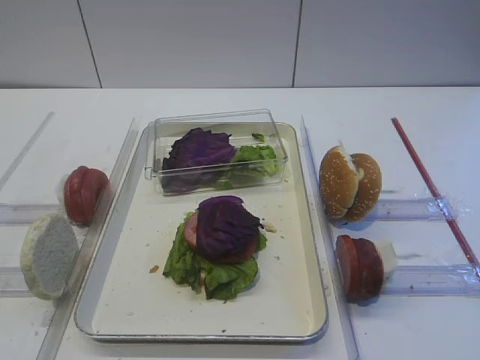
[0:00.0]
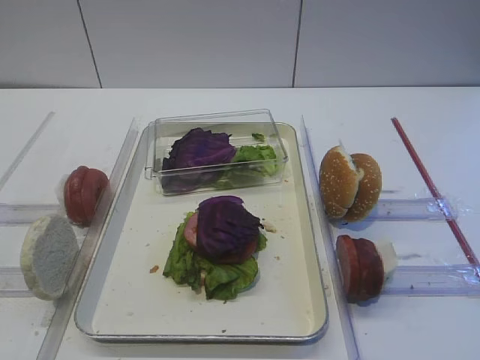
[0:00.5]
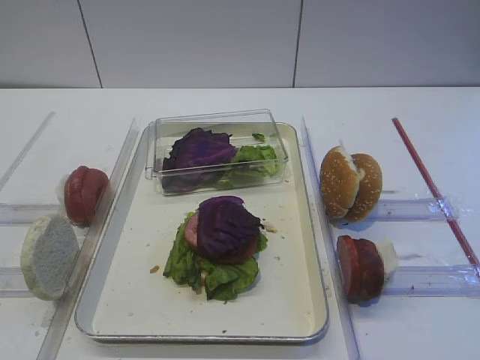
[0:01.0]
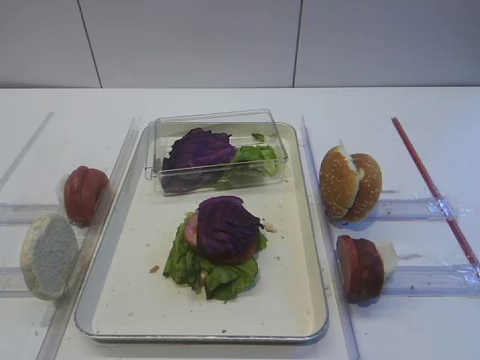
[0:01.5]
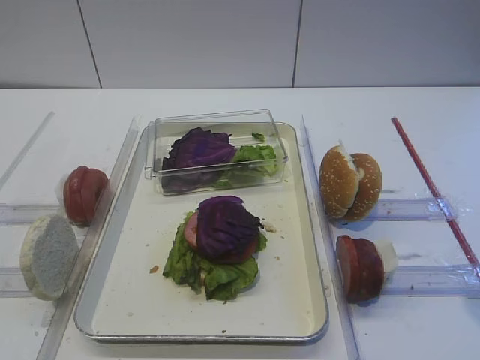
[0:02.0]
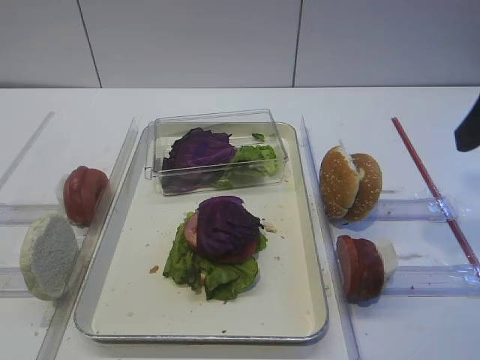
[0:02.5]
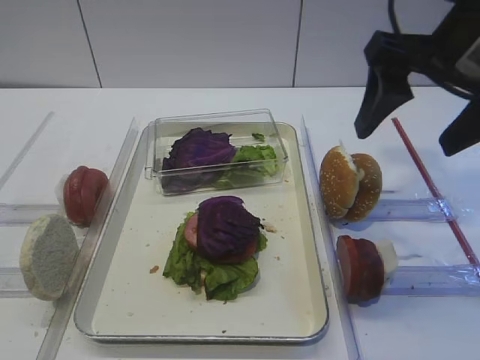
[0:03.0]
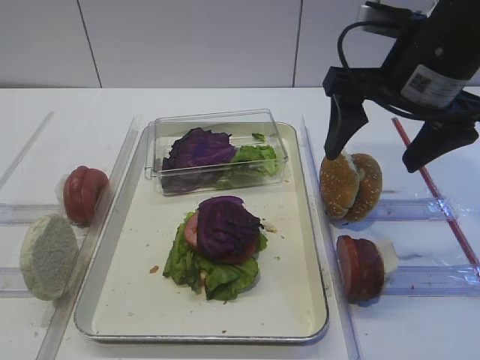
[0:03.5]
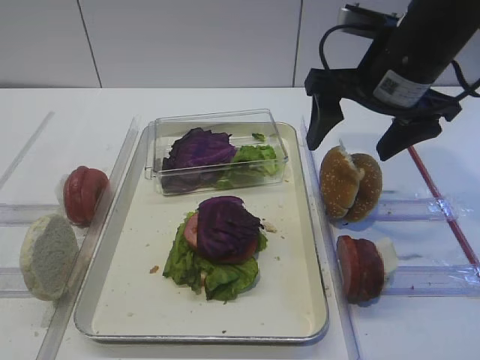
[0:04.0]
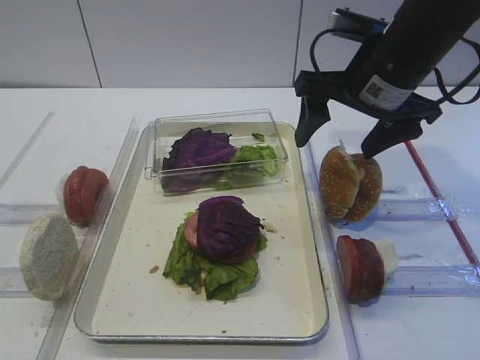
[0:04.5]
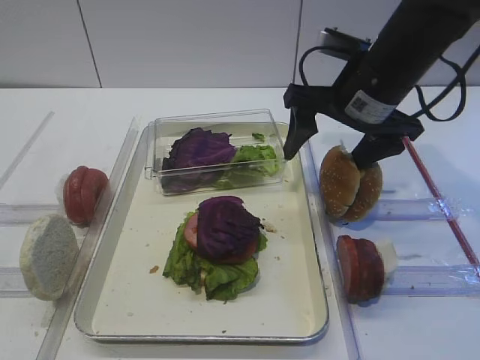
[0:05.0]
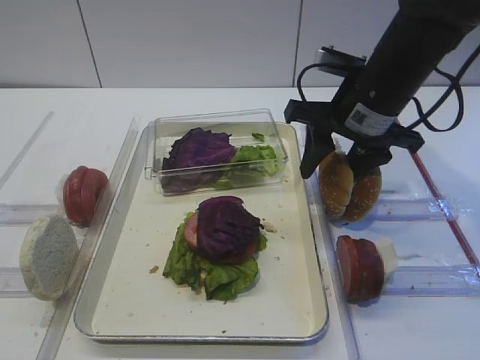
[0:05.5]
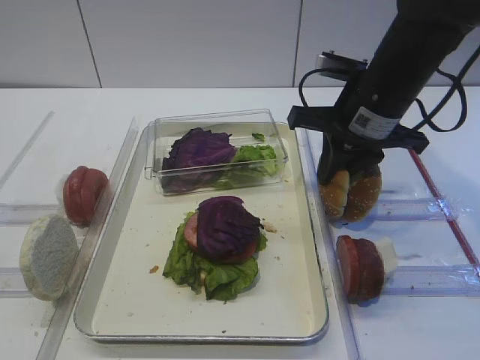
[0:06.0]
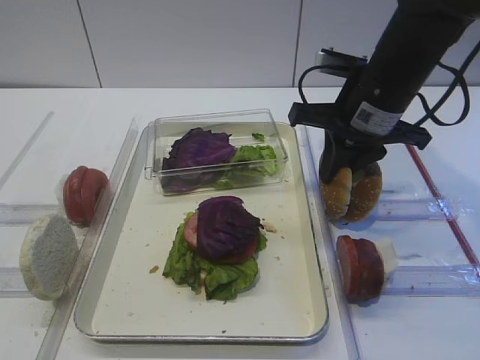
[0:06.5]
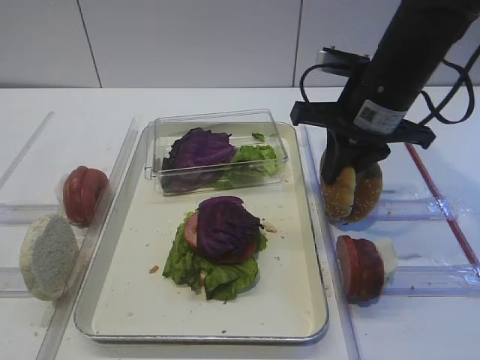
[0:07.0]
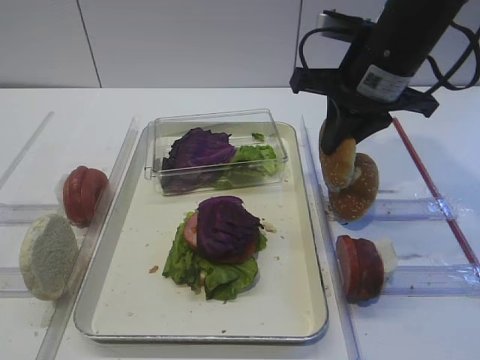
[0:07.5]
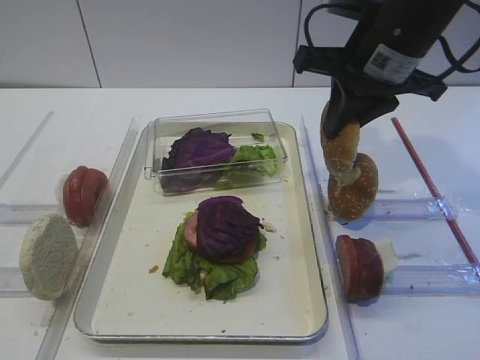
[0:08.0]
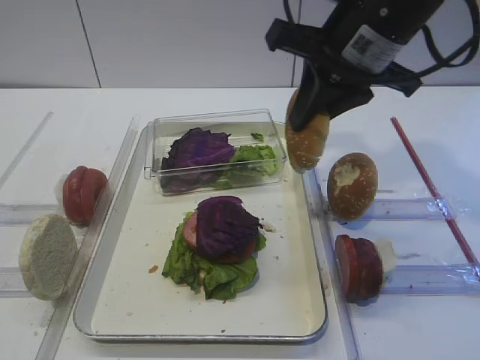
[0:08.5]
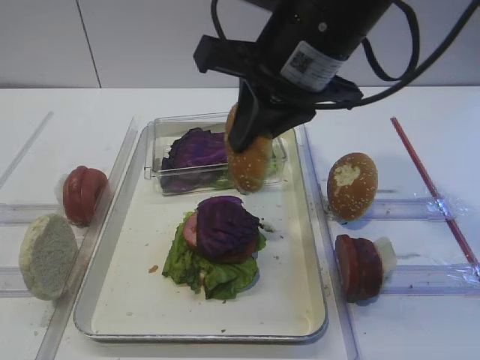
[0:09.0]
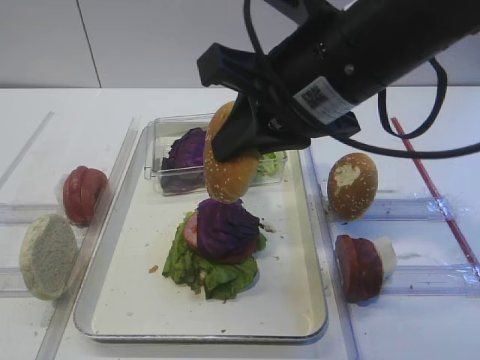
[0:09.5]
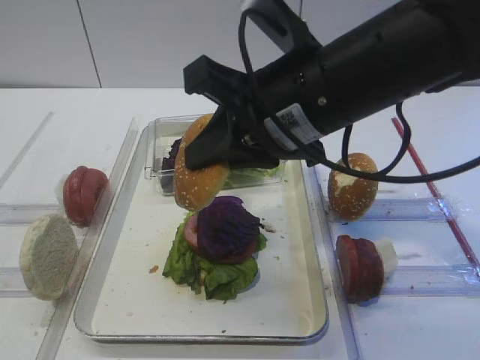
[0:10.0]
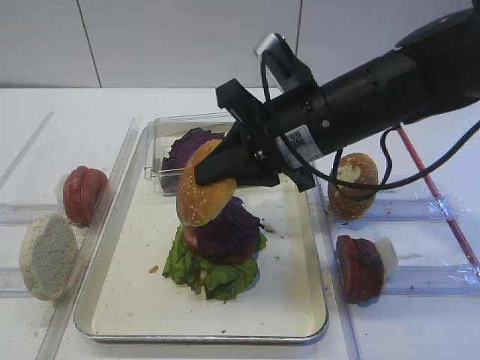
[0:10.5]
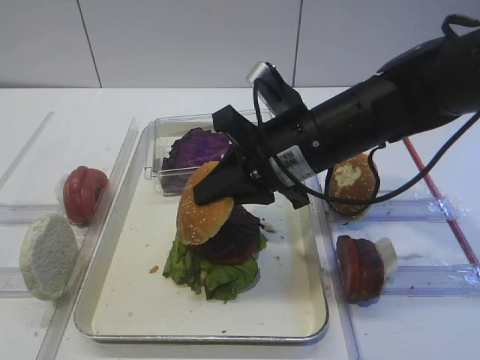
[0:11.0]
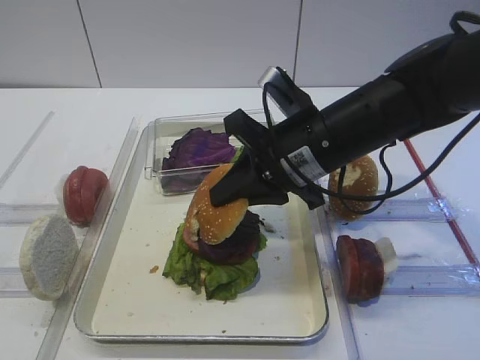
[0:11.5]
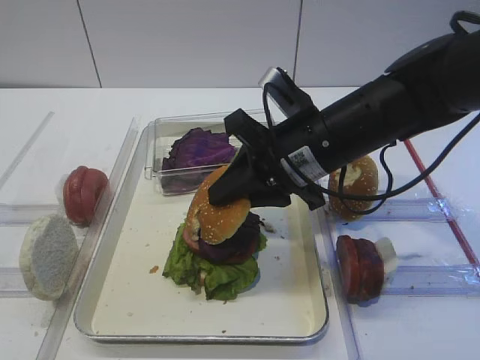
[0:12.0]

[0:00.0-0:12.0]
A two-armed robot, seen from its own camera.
Step, 0:00.0 to 0:07.5: Pick up the hamburger lid with the right gripper.
0:02.0 to 0:04.0: The right gripper travels forward and to the left by about 25 cm.
0:04.0 to 0:06.0: The right gripper ends up about 5 cm from where it was, and closes up.
0:06.0 to 0:08.0: The right gripper heads upward, covering roughly 5 cm.
0:08.0 to 0:10.0: The right gripper heads backward and to the left, covering roughly 10 cm.
0:10.0 to 0:12.0: The right gripper shifts some 10 cm downward and forward.

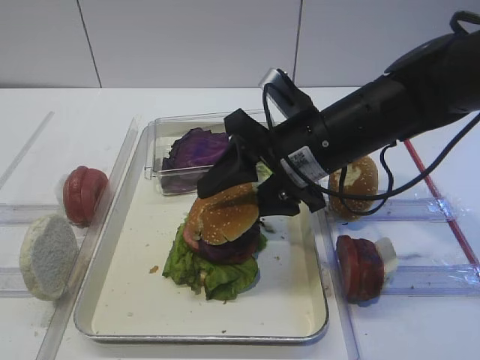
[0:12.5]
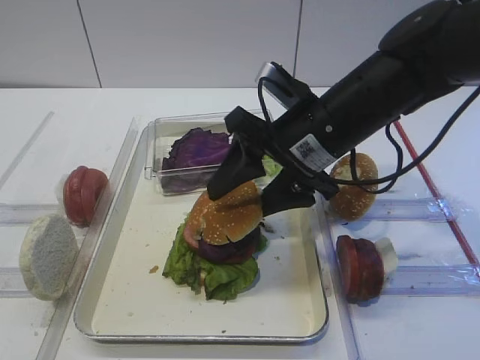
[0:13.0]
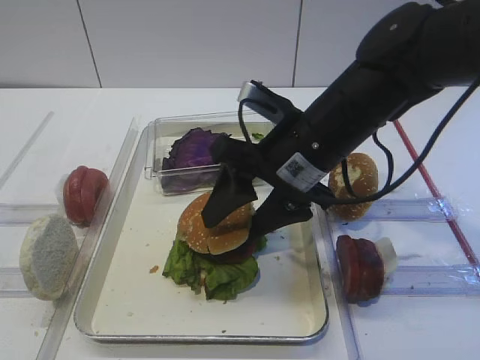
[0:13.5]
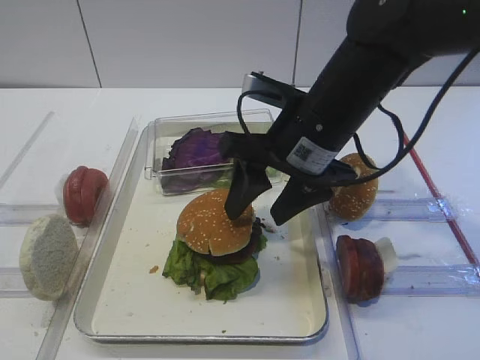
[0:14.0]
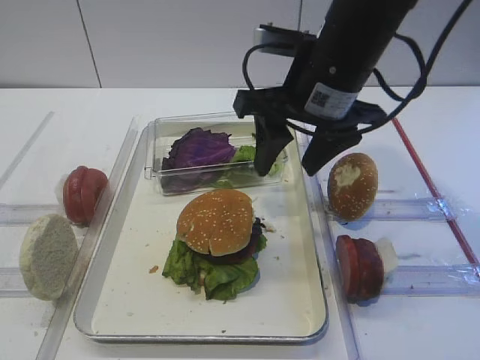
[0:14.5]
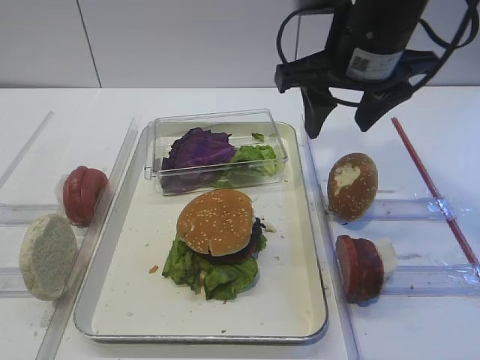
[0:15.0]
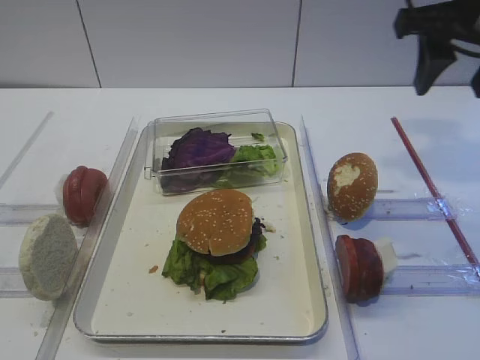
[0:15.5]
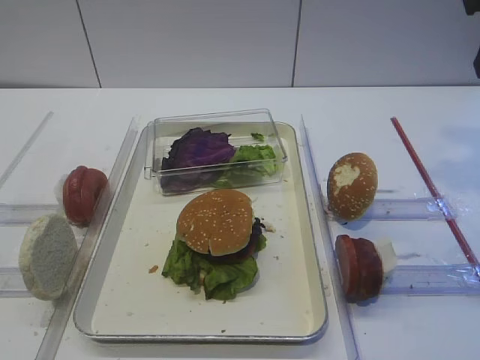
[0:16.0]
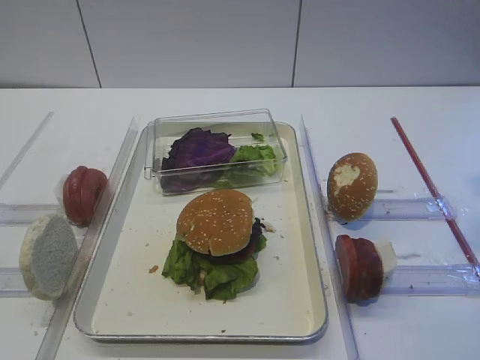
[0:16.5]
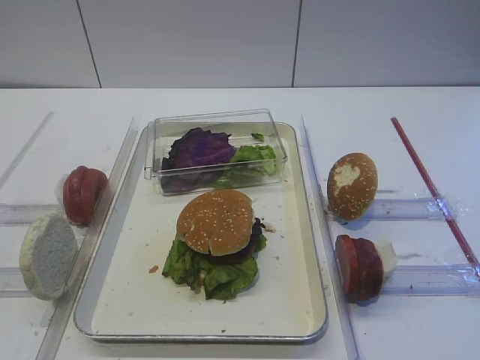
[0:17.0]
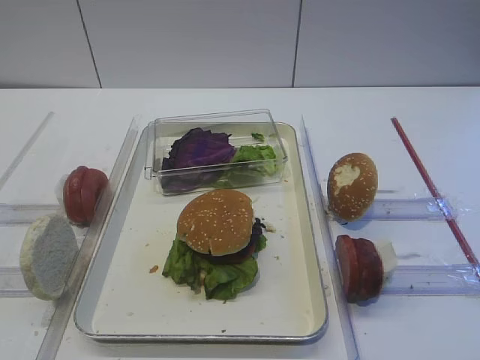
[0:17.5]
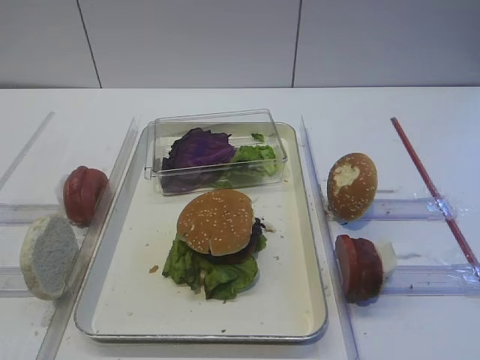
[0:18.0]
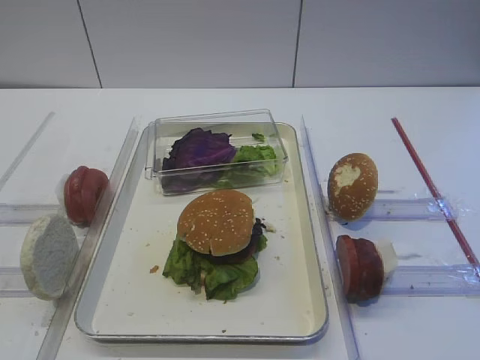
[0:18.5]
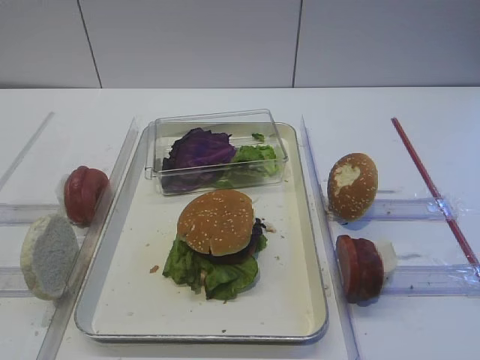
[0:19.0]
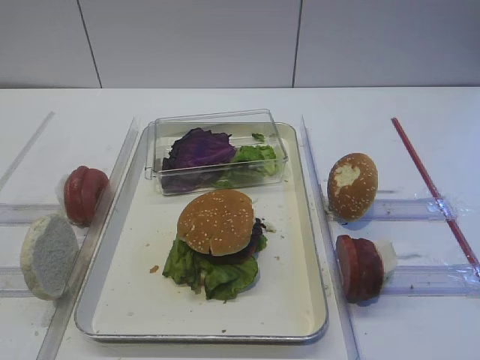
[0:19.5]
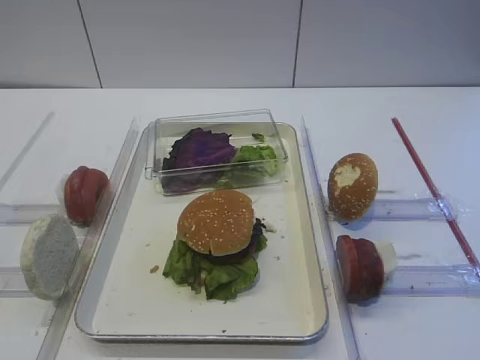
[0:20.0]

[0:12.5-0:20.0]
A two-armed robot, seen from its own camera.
0:12.5 to 0:14.5: The right gripper heads upward, covering about 5 cm.
0:14.5 to 0:16.5: The right gripper shifts about 25 cm to the right, backward and upward.
0:18.0 to 0:20.0: The two grippers keep their place.

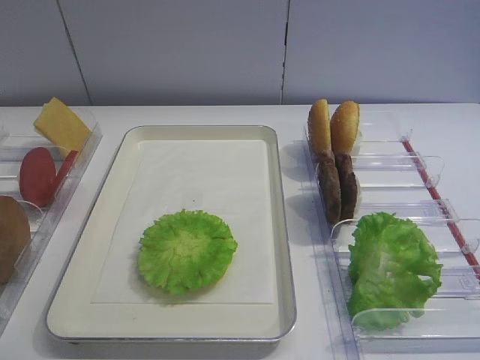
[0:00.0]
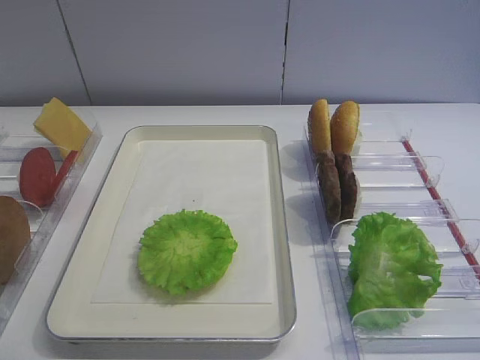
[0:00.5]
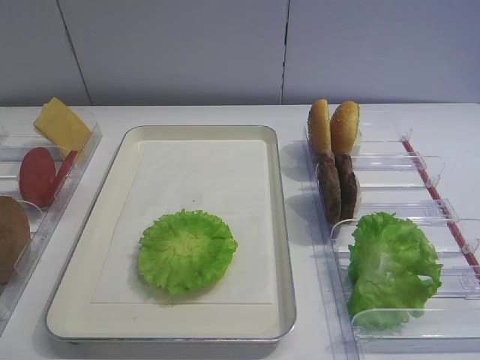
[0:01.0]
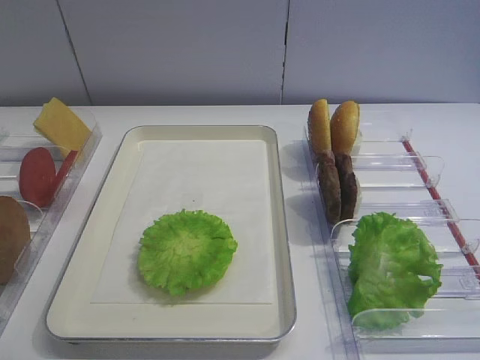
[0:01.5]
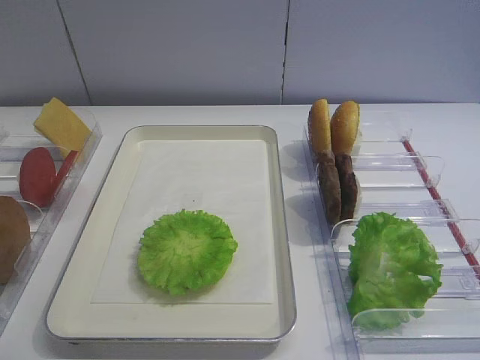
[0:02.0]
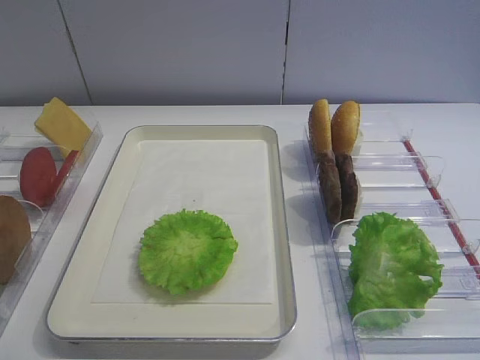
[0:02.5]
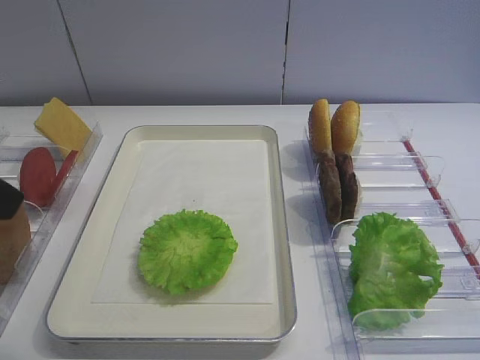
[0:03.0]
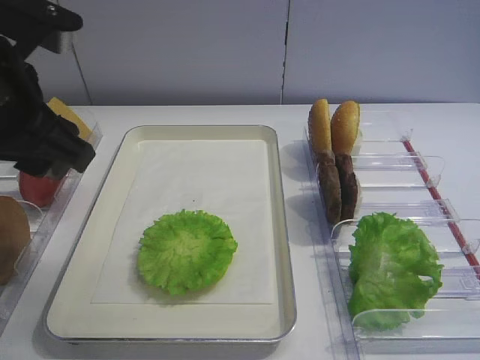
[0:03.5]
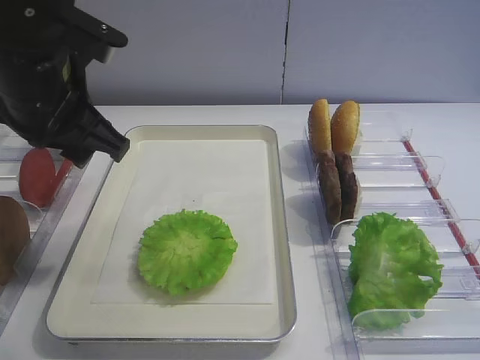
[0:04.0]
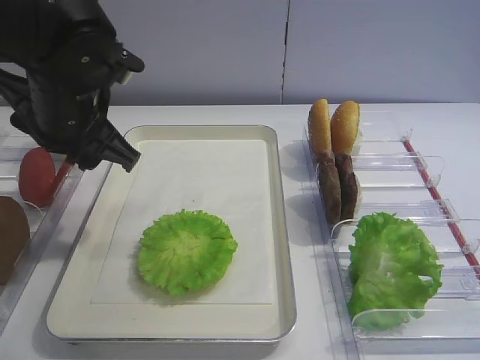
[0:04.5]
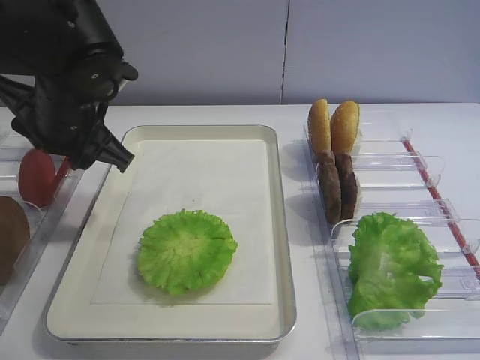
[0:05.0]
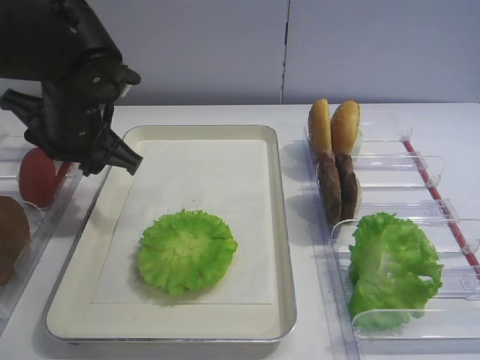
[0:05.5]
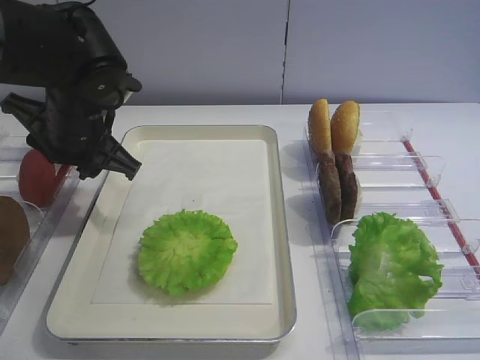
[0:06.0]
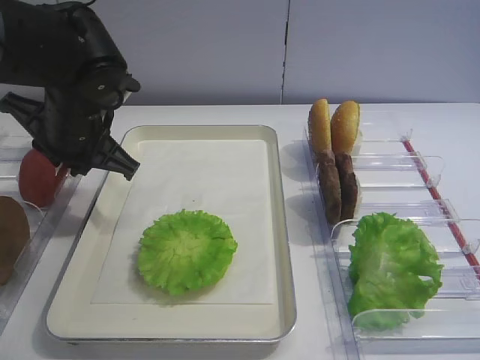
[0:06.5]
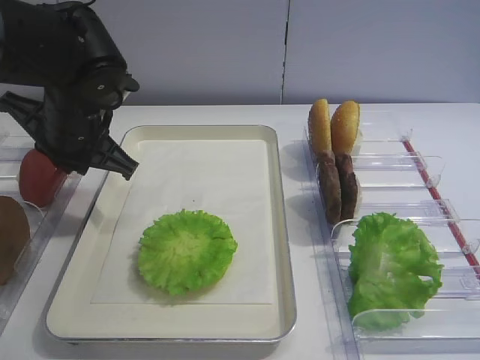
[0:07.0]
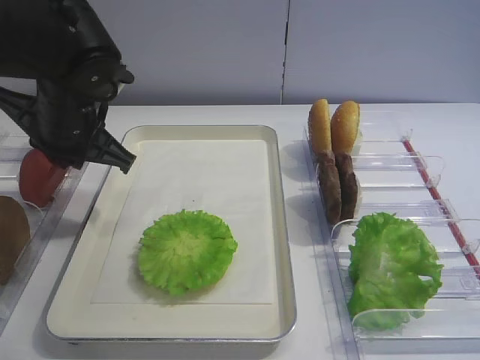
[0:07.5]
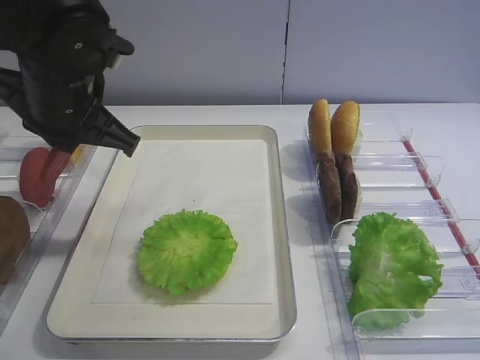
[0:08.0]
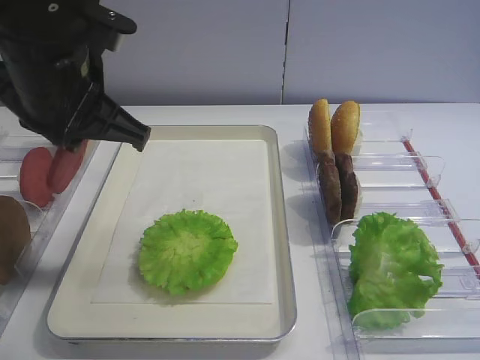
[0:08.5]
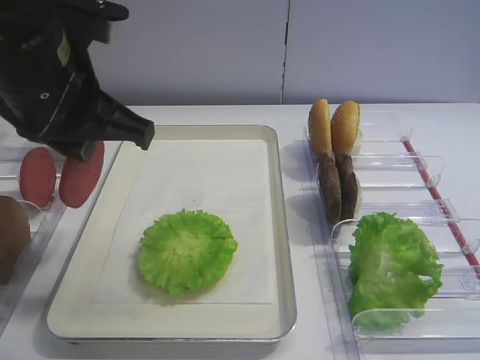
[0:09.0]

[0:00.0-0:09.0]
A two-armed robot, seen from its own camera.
Step, 0:00.0 to 0:07.5: Pick up the tomato slice with the left gripper.
0:02.0 to 0:04.5: The left gripper travels forward and to the right by approximately 30 cm.
0:04.5 to 0:07.0: The left gripper moves about 5 cm, and closes.
0:07.0 to 0:09.0: The left gripper moves upward and backward, some 15 cm.
